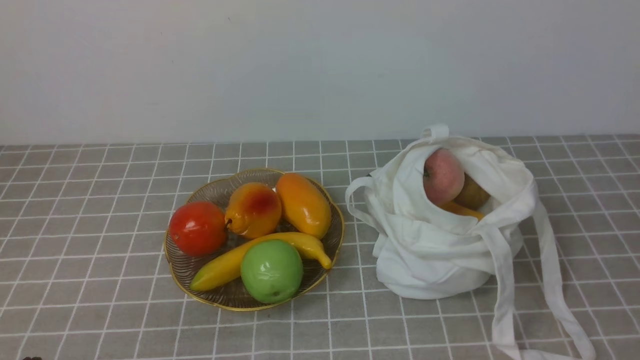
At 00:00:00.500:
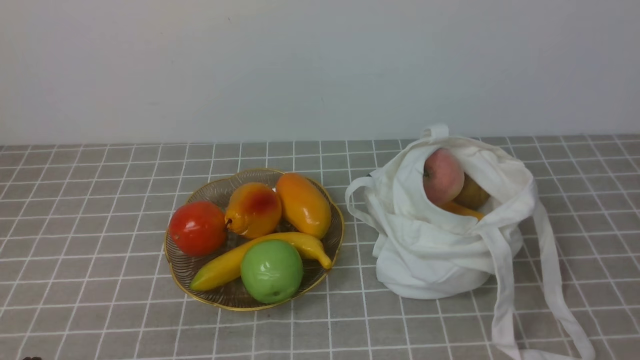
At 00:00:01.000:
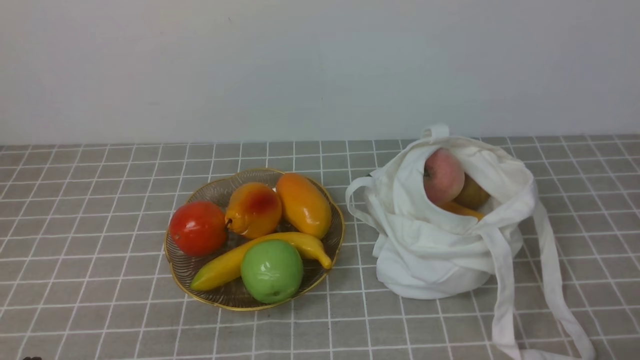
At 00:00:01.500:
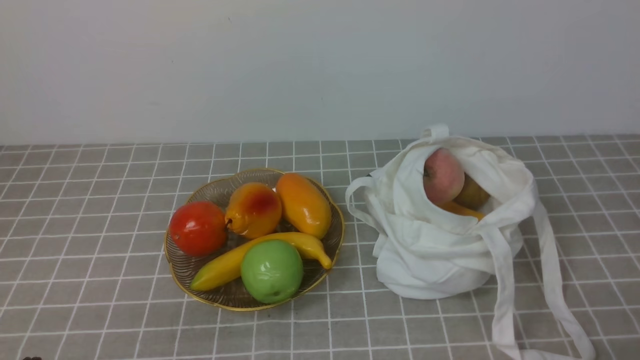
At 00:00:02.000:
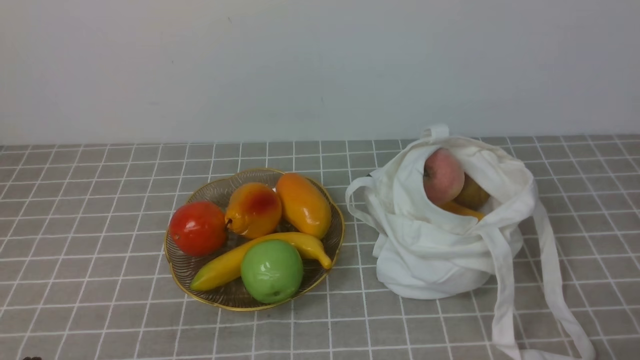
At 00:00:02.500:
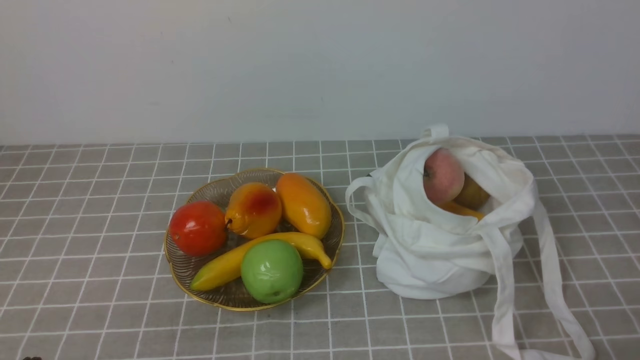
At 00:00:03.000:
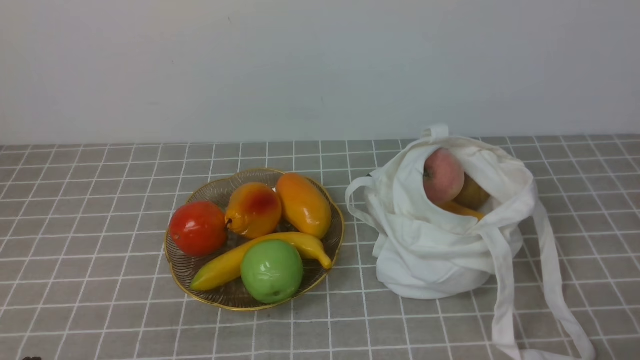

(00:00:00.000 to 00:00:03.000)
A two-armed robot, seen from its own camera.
00:00:01.500 - 00:00:03.000: Both grippers stay put.
